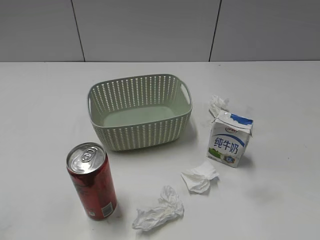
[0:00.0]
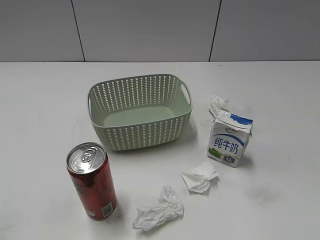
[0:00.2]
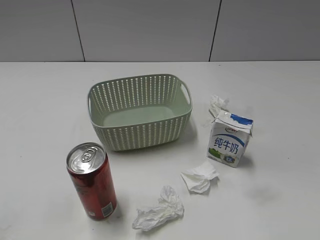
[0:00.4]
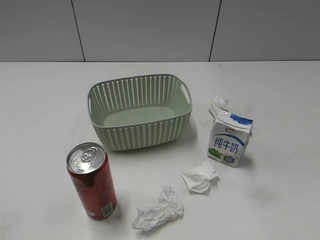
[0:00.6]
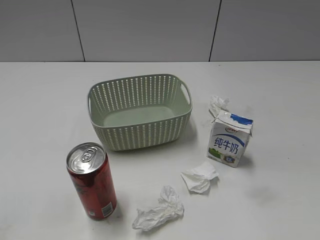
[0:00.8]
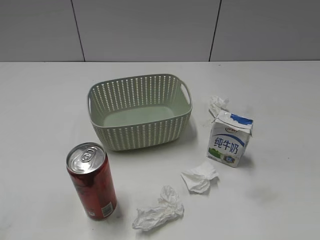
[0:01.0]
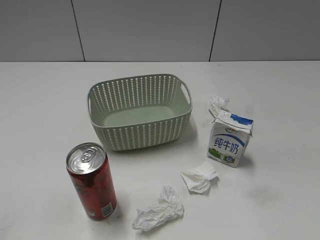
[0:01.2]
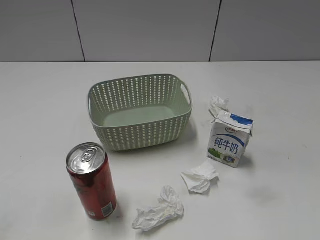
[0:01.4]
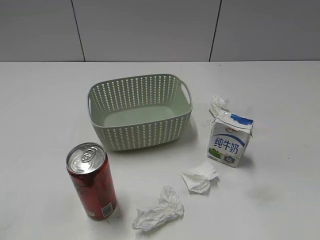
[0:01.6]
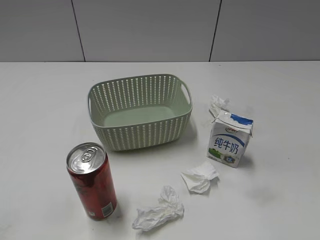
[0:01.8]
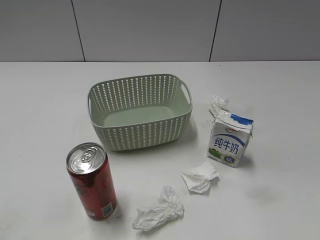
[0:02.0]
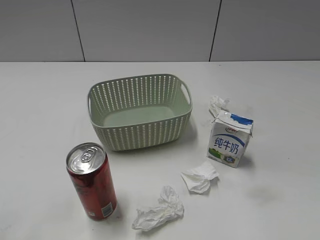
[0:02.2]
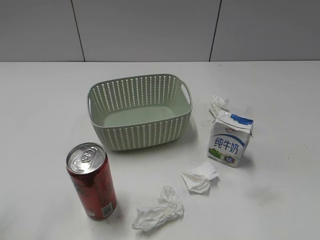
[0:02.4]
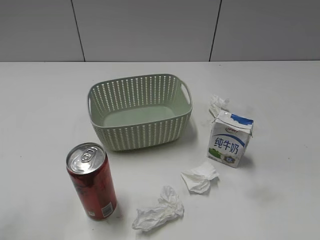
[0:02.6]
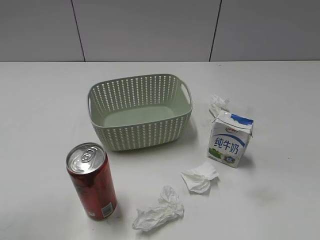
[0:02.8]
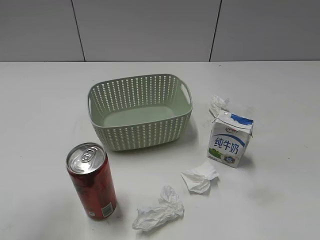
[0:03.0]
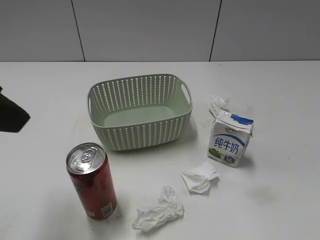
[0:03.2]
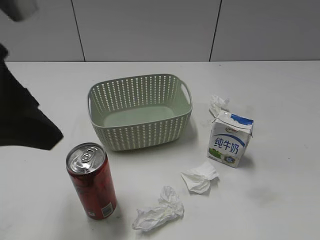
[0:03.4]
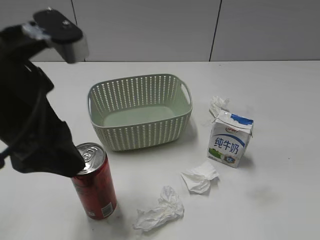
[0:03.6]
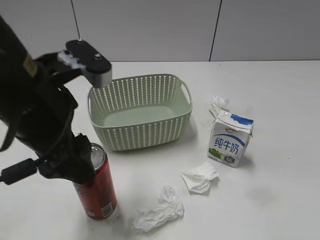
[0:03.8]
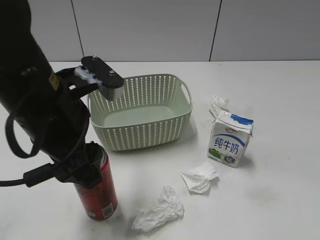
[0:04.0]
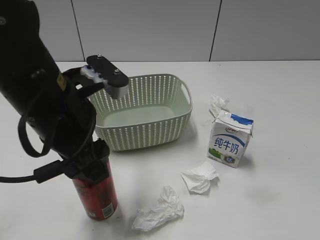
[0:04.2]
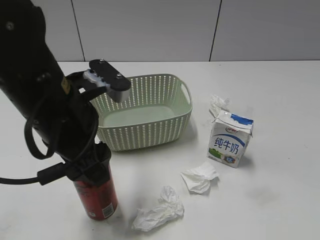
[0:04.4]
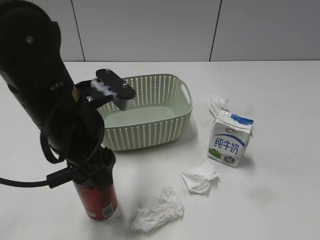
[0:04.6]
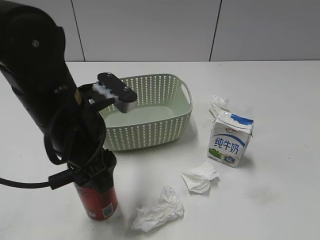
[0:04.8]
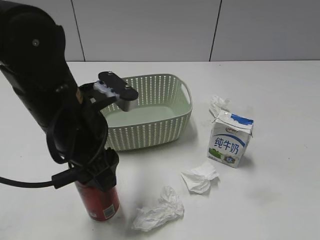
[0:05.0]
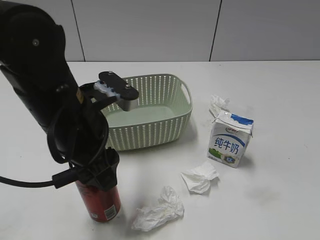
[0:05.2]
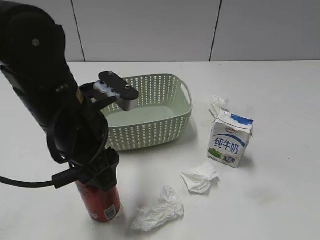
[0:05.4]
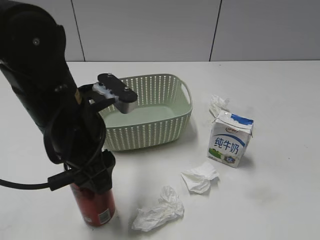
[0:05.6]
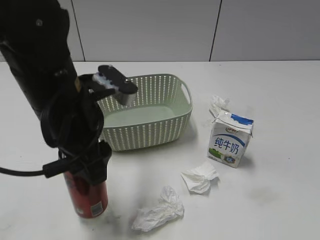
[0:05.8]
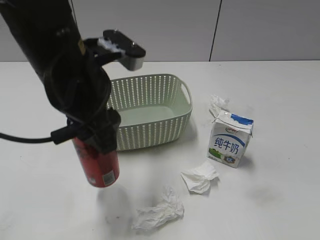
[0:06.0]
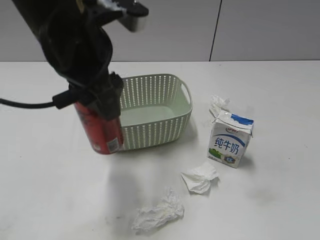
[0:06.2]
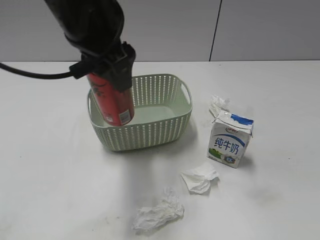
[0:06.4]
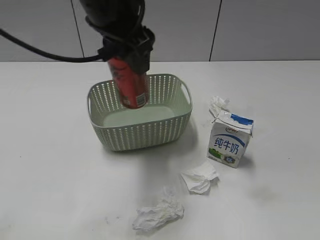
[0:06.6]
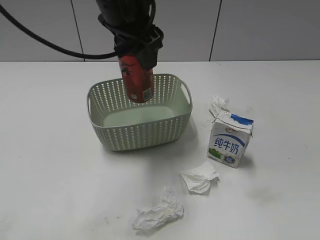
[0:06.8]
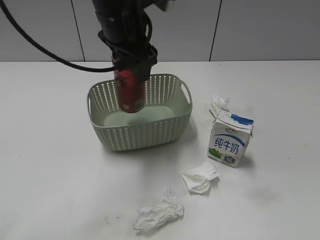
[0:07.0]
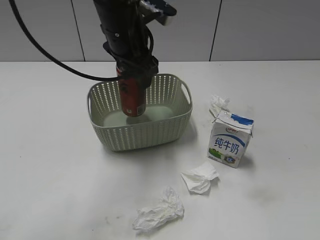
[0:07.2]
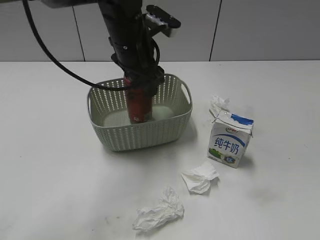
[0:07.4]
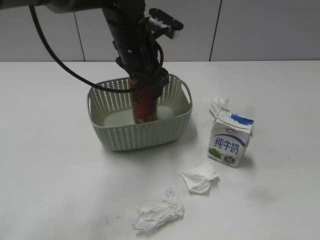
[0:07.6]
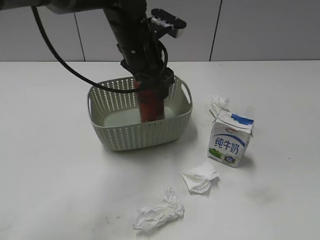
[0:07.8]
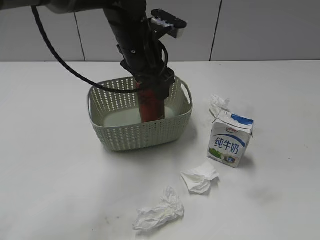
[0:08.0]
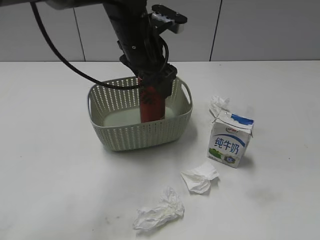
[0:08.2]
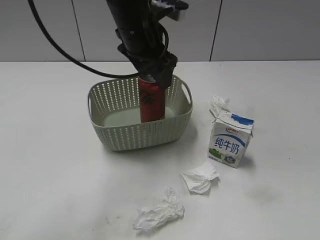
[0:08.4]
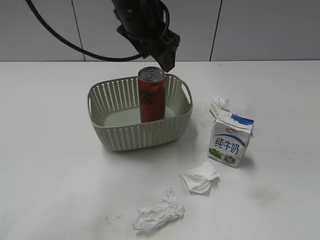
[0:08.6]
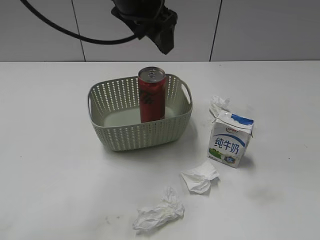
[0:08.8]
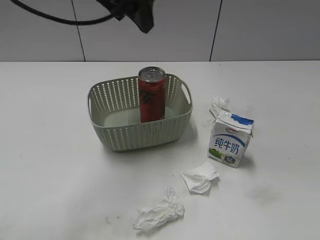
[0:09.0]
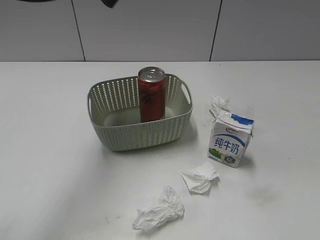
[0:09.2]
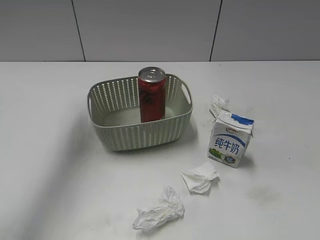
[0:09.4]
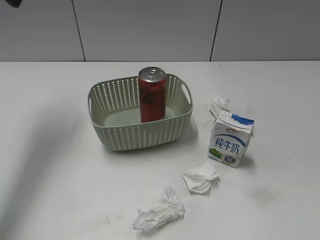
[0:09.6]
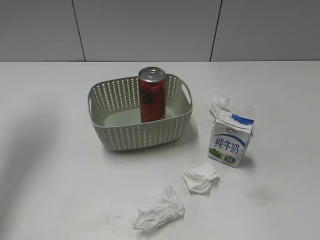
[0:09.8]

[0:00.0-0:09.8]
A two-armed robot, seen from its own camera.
Step, 0:03.2 to 0:05.0: Grasp the cola can with left gripper.
Step, 0:05.2 to 0:08.6: Place the cola can in the basket with left gripper.
0:02.8 to 0:04.2: The left gripper moves to the right, forward and downward, about 20 cm.
0:04.2 to 0:05.6: The left gripper closes its fingers.
0:05.6 to 0:07.0: The left gripper heads forward, upward and to the right, covering about 15 cm.
0:07.0 to 0:08.4: The left gripper moves roughly 5 cm, and opens.
0:08.4 to 0:09.8: The left gripper goes approximately 30 cm to the left and upward, and closes its fingers.

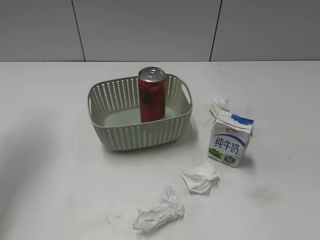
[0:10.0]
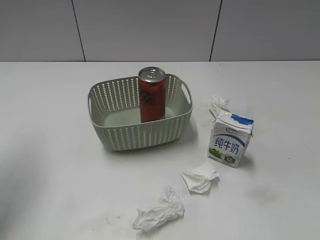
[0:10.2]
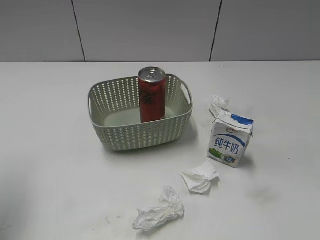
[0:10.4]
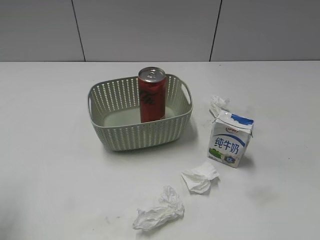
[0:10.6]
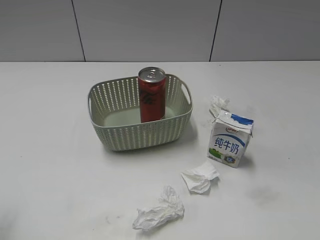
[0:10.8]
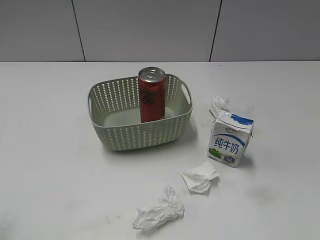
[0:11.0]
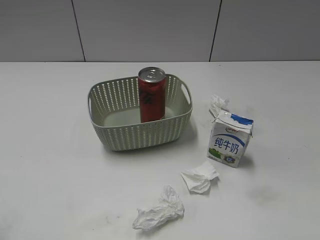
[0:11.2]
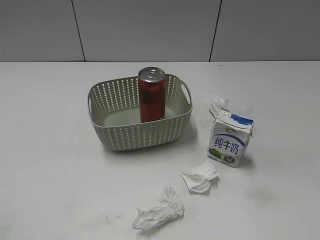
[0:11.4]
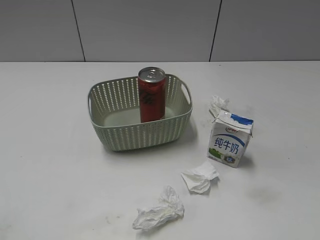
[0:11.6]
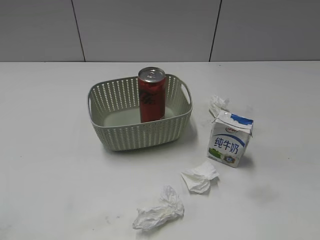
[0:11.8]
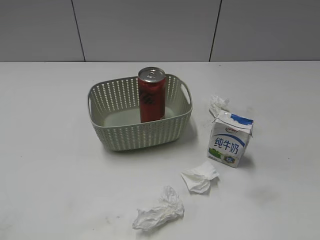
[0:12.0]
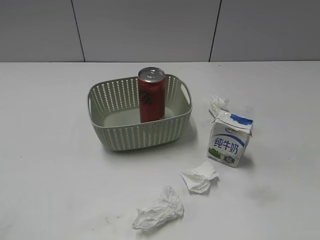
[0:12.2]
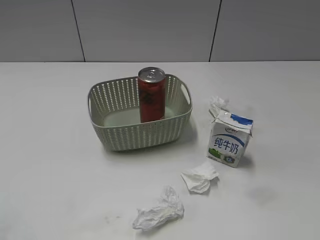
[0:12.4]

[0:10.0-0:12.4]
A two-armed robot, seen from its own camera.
0:10.0 to 0:11.2: The left gripper shifts approximately 25 cm backward.
